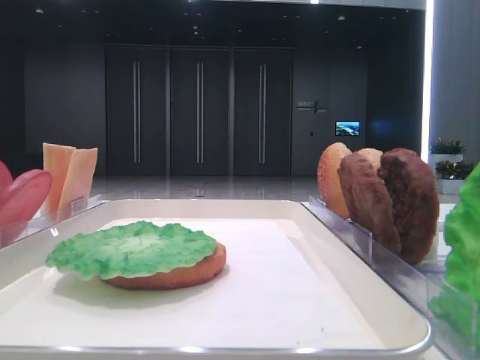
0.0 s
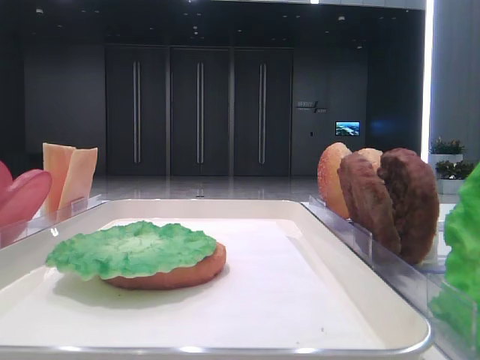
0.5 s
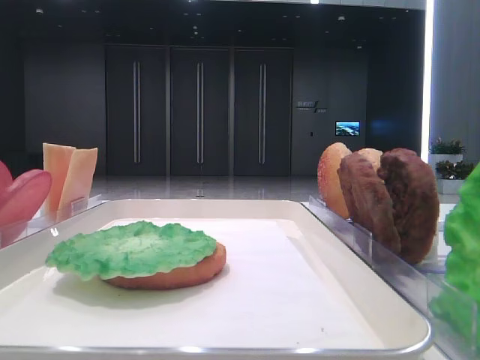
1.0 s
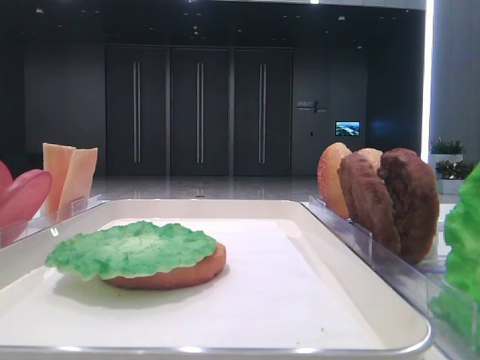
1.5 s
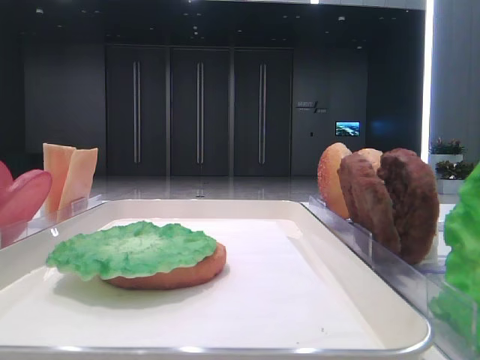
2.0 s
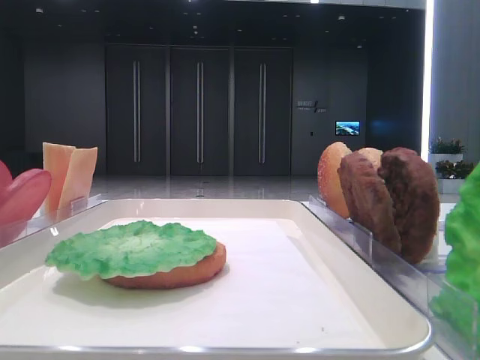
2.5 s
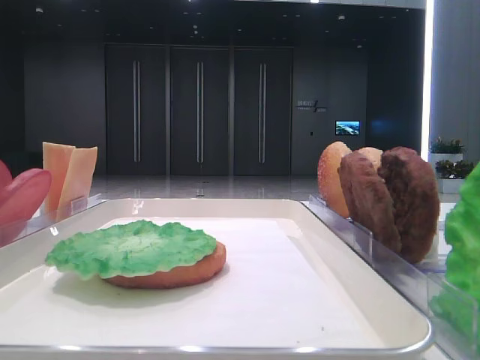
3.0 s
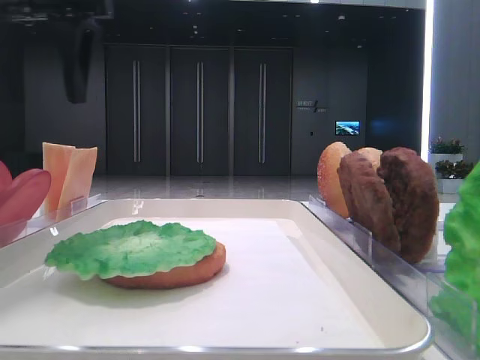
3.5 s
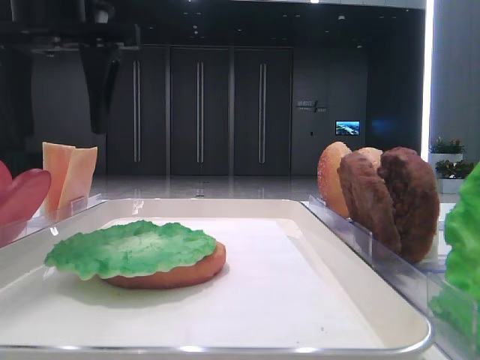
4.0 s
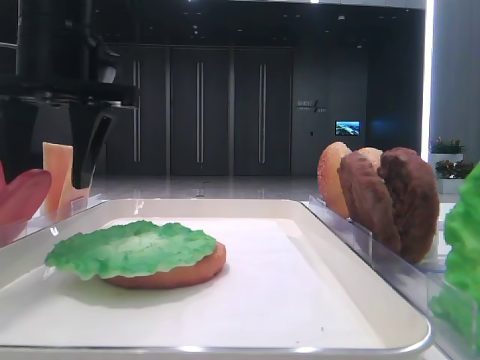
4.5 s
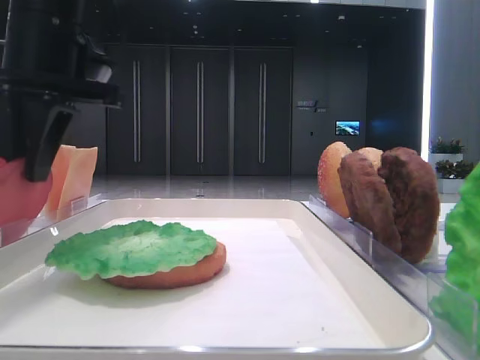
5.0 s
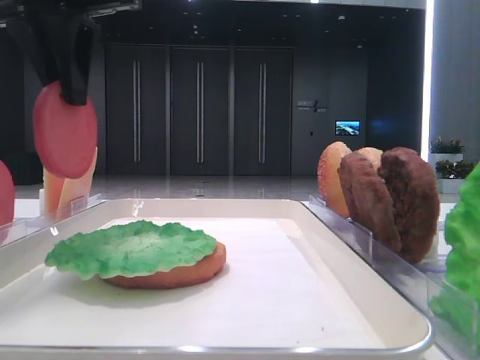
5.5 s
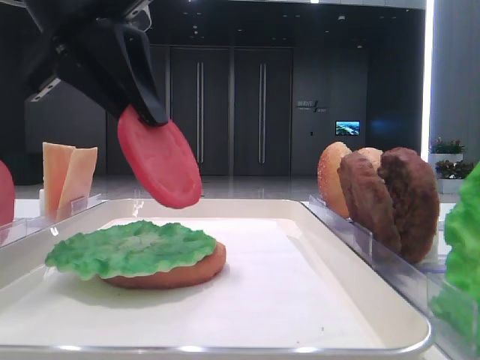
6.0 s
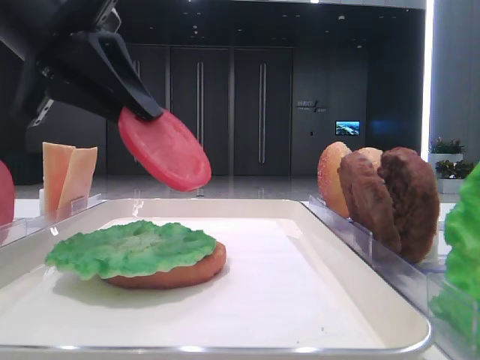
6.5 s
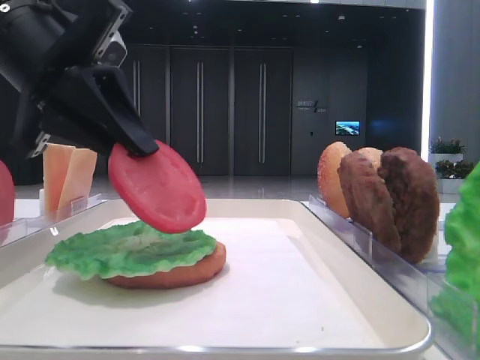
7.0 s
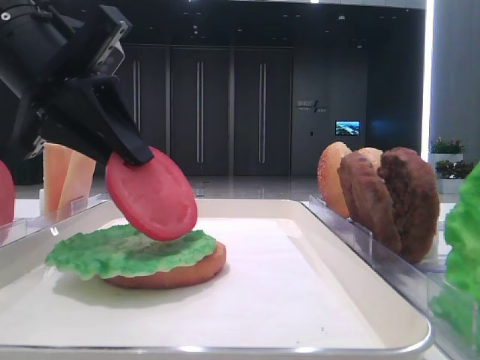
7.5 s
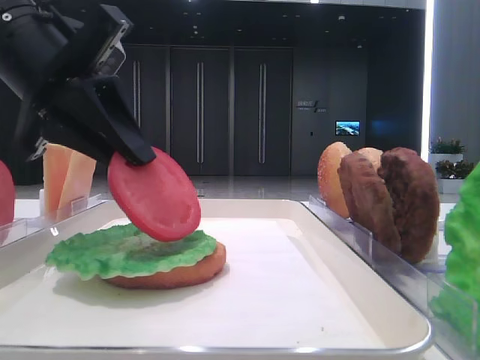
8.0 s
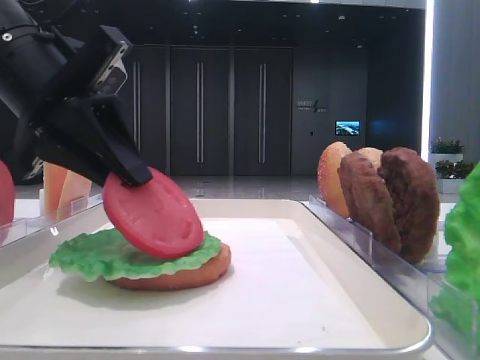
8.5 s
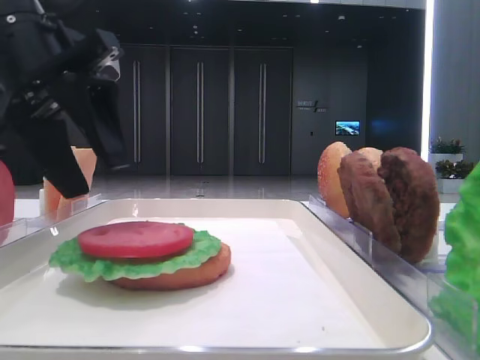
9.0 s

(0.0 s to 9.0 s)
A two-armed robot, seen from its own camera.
Step, 0.0 s - 4.5 s: Pick up the tomato slice with the left hand.
Step, 5.0 s - 8.5 s: Place the tomato slice on the lettuce leaf with the left hand.
2.0 s - 4.5 s: The left gripper moves forward and to the right, approximately 35 cm.
4.5 s - 7.0 s: The left gripper travels upward and back again, roughly 5 cm each way, and closes up.
7.0 s - 9.0 s: The left gripper opens.

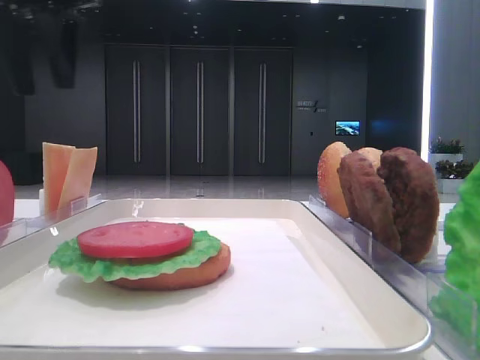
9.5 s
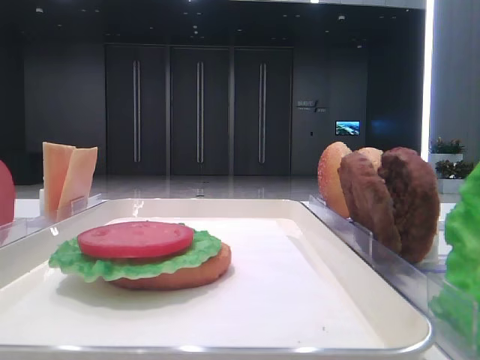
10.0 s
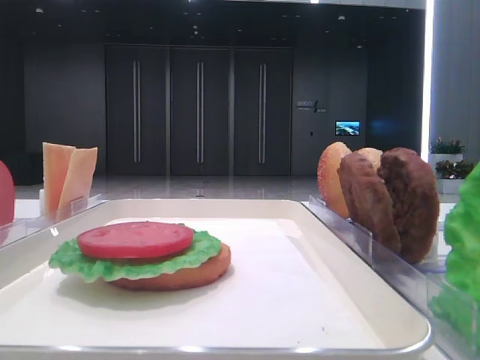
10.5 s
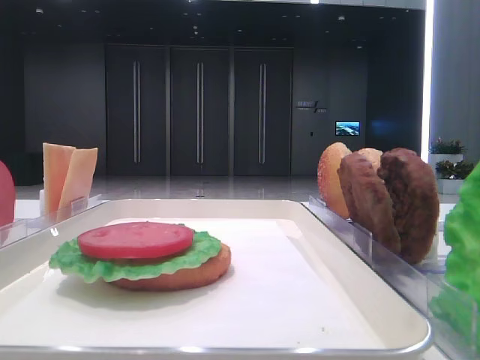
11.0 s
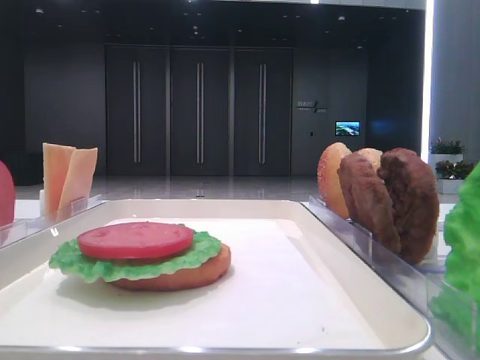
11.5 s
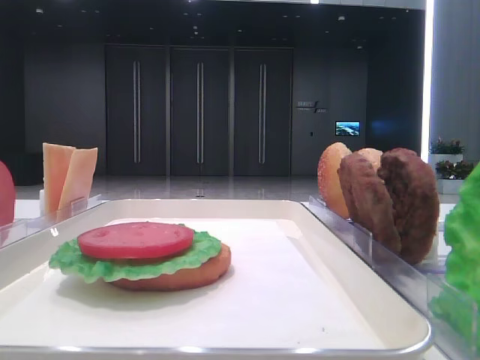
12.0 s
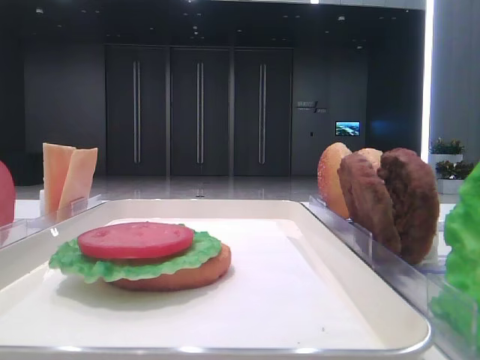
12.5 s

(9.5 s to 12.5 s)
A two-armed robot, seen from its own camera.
9.5 s - 11.0 s: The left gripper goes approximately 30 cm backward.

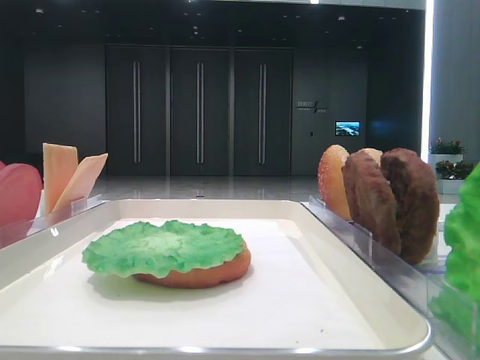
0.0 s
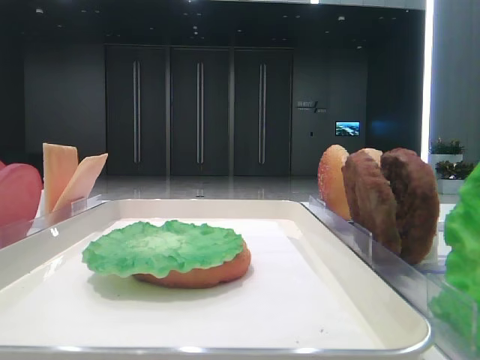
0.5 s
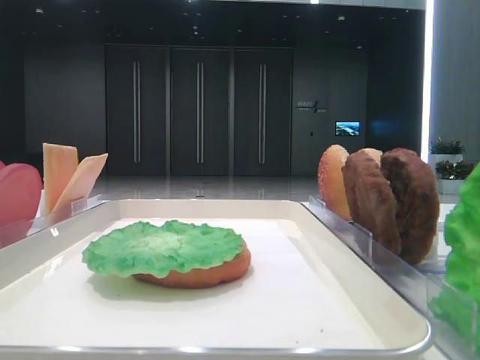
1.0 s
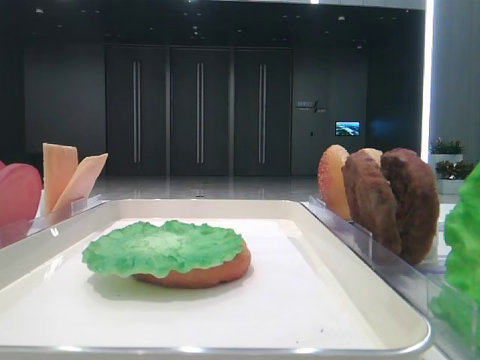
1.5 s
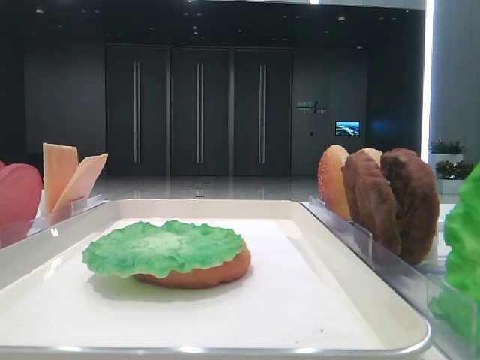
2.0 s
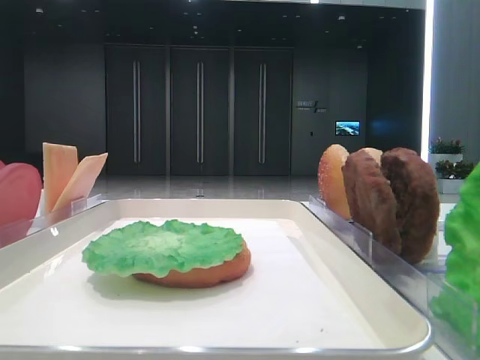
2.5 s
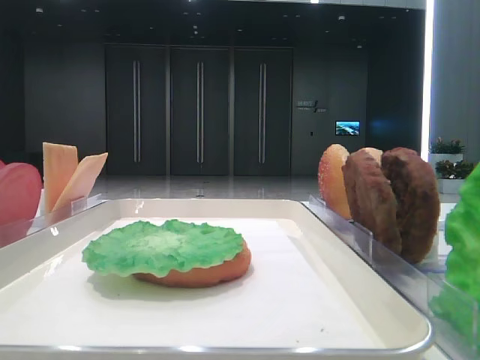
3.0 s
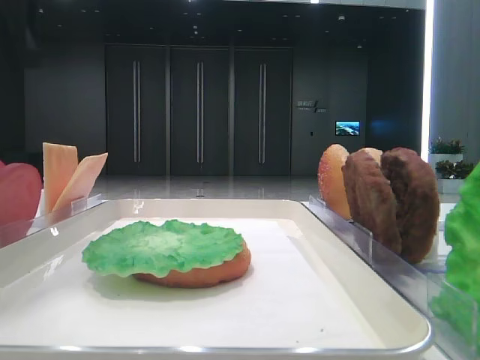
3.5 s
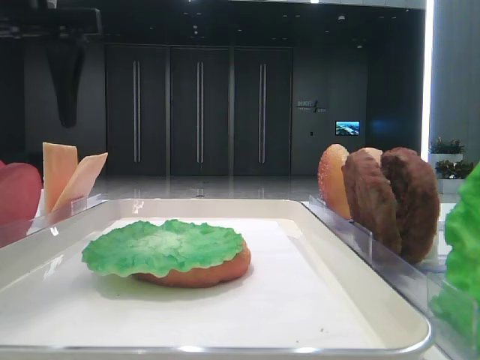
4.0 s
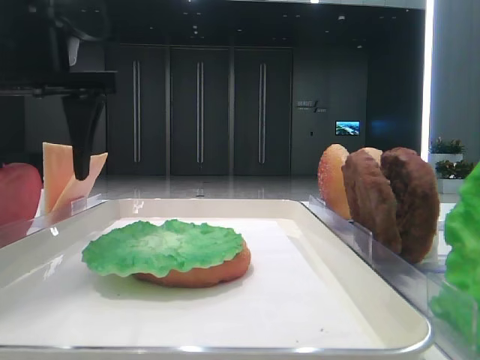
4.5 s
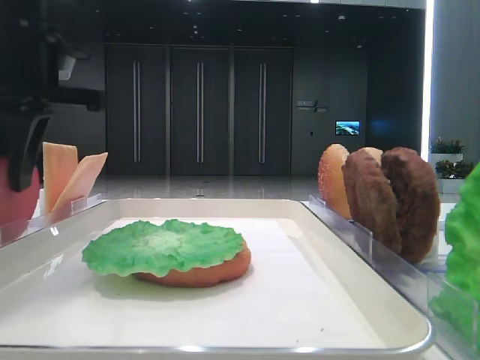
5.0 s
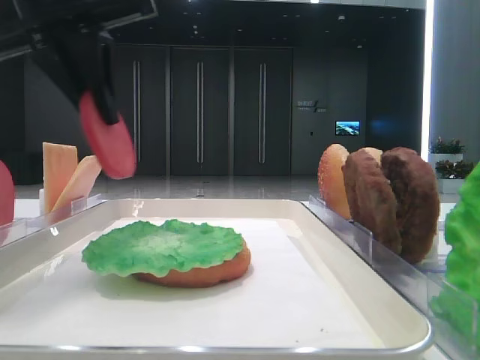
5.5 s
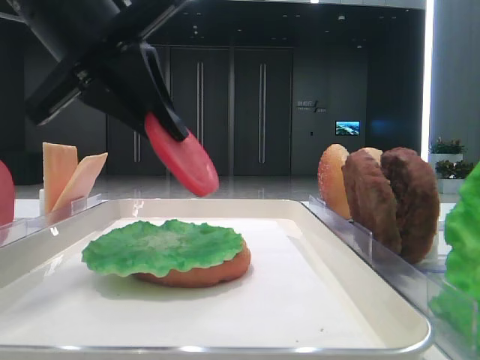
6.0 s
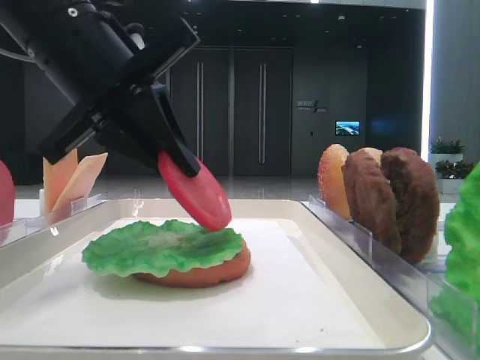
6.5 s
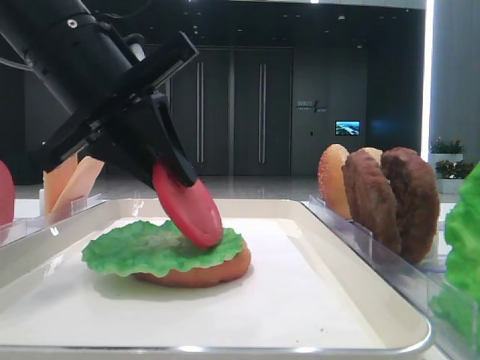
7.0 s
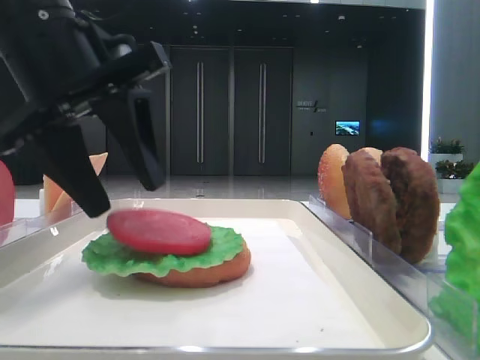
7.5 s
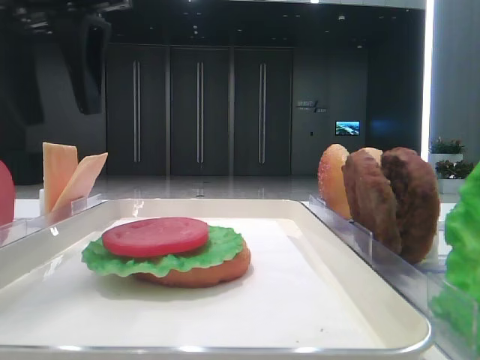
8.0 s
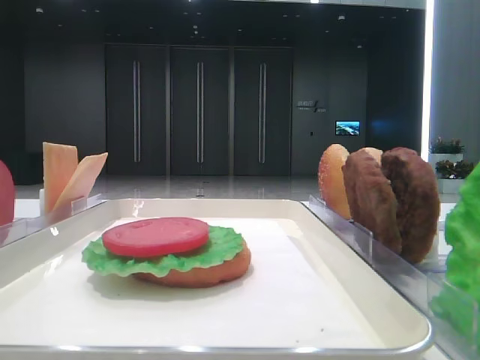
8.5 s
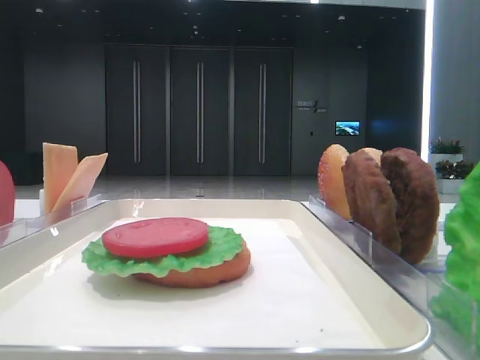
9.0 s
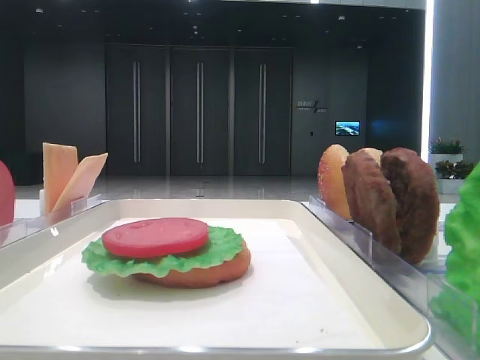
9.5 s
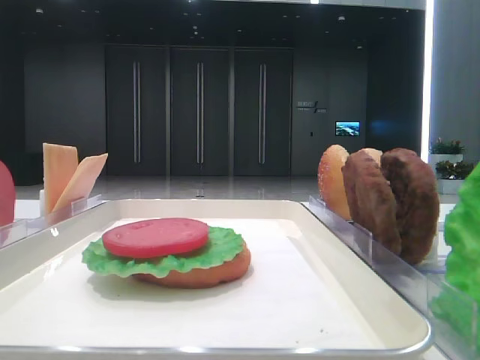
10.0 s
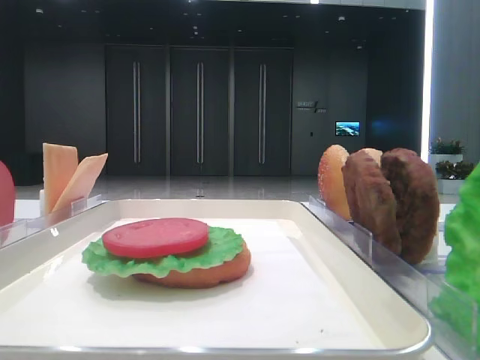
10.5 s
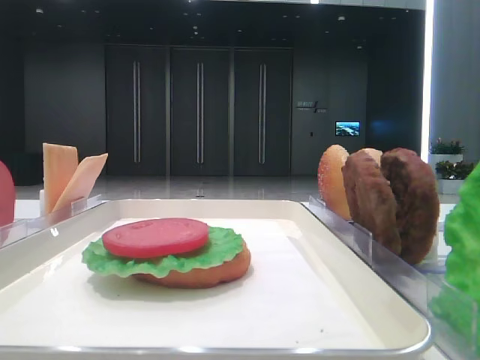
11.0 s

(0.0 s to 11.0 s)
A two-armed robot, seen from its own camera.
Step, 0.0 s - 4.5 s: Pick up the tomato slice with the left hand.
Step, 5.0 s - 7.0 s: Place the tomato slice on the lettuce leaf with the left hand.
2.0 s - 3.5 s: The left gripper shifts some 25 cm forward.
3.5 s - 5.5 s: The left gripper heads to the right, covering about 5 cm, and closes.
5.5 s - 7.5 s: The left gripper moves downward, about 5 cm, and opens up.
7.5 s - 9.0 s: The left gripper travels to the left and upward by approximately 20 cm.

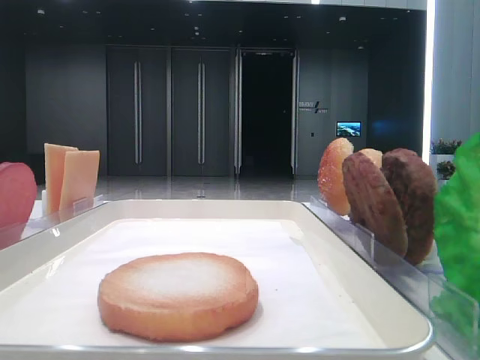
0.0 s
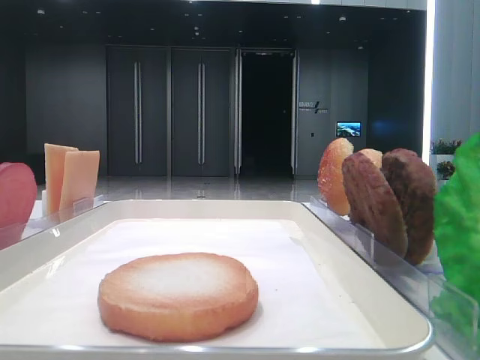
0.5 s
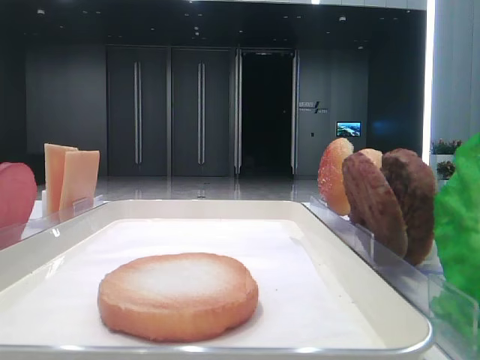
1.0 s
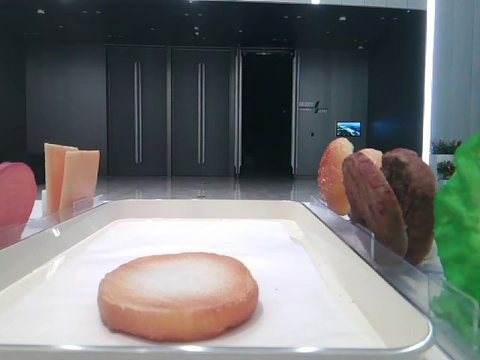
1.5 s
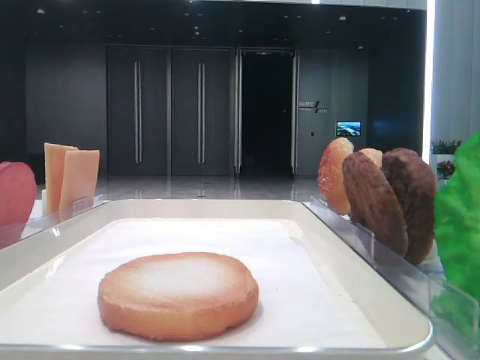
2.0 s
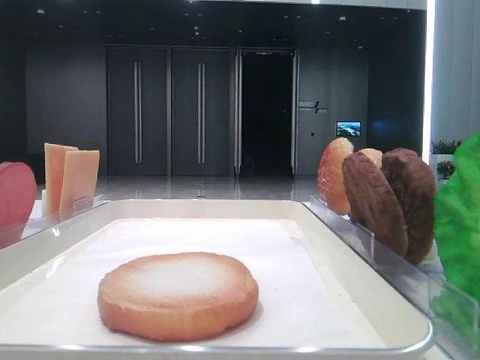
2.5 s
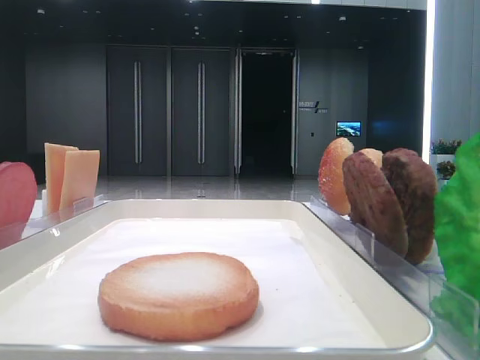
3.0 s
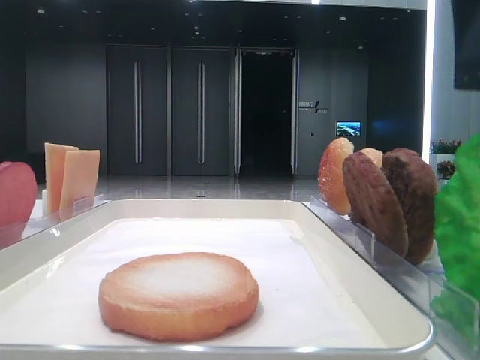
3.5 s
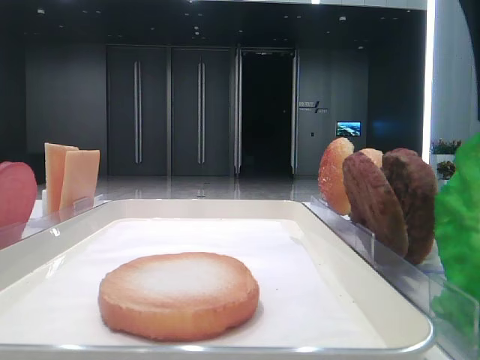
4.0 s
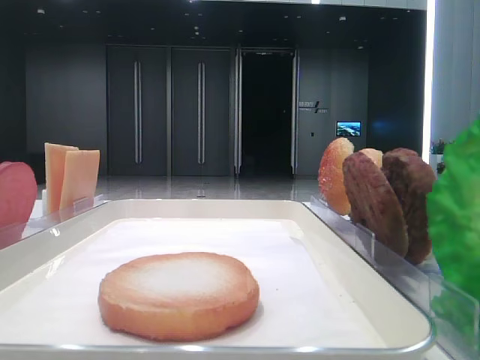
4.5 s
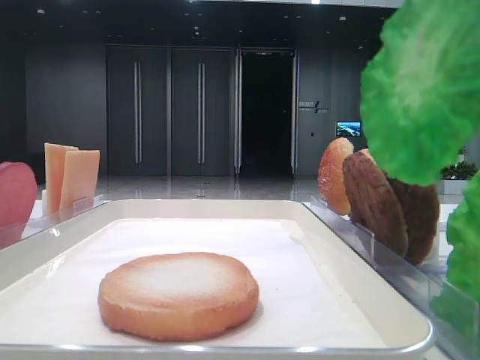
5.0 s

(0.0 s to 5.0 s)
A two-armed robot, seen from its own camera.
Step, 0.0 s - 3.5 s: Grab the lettuce leaf with the right hand.
2.5 s - 5.0 s: The right gripper goes some 10 cm to the left, and closes.
